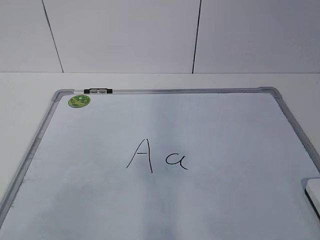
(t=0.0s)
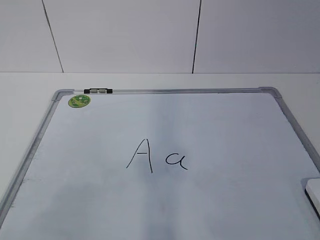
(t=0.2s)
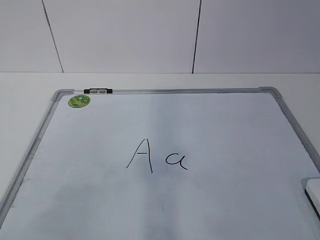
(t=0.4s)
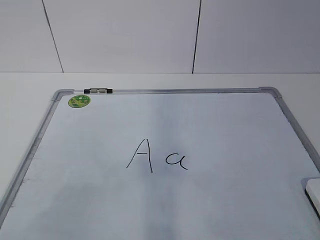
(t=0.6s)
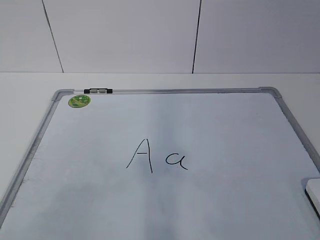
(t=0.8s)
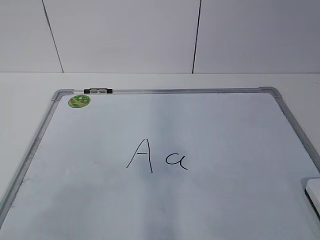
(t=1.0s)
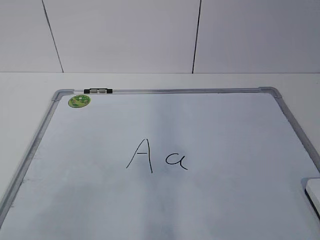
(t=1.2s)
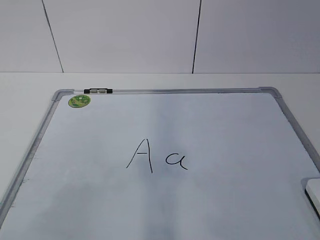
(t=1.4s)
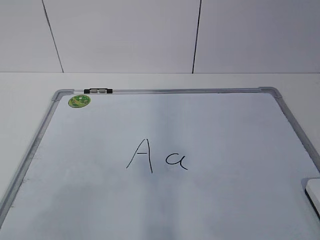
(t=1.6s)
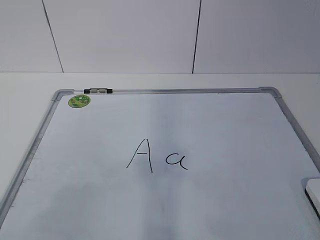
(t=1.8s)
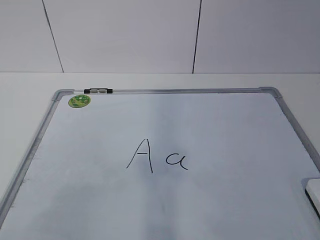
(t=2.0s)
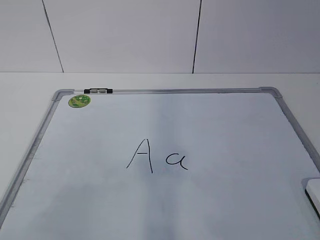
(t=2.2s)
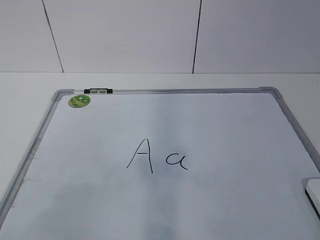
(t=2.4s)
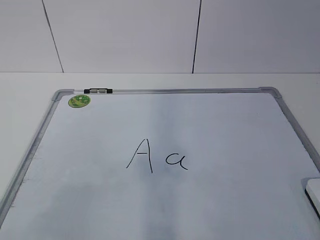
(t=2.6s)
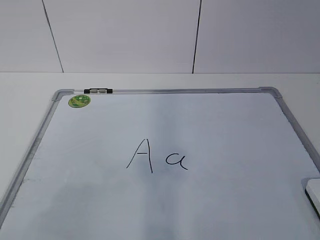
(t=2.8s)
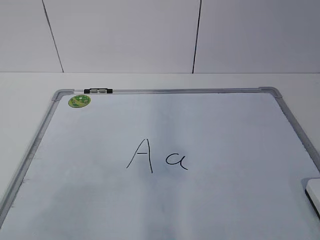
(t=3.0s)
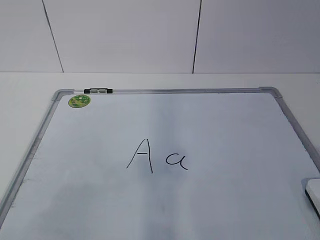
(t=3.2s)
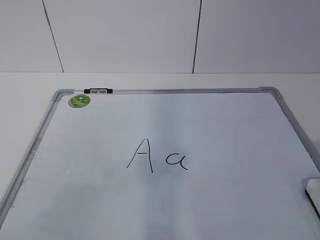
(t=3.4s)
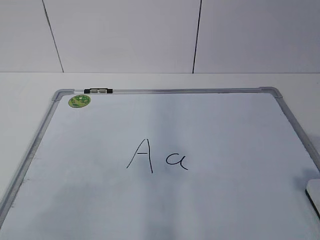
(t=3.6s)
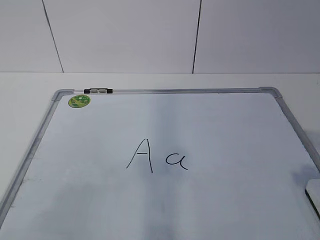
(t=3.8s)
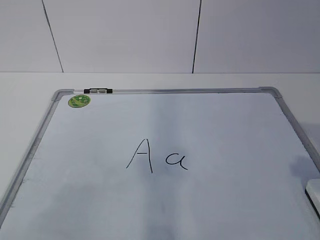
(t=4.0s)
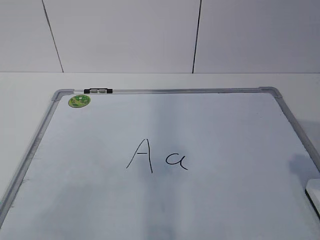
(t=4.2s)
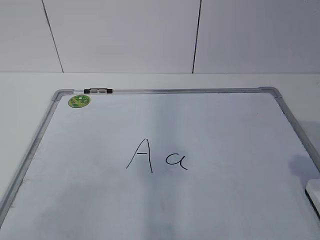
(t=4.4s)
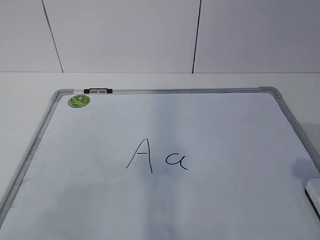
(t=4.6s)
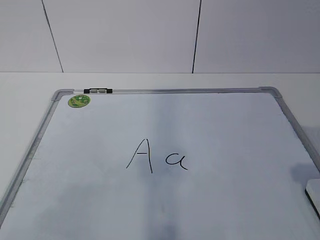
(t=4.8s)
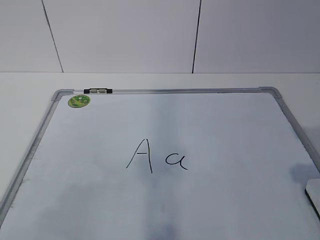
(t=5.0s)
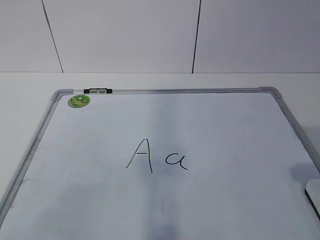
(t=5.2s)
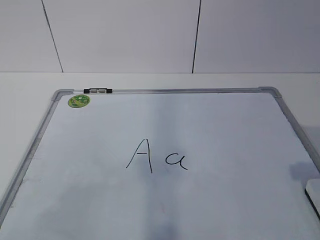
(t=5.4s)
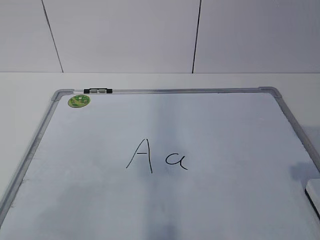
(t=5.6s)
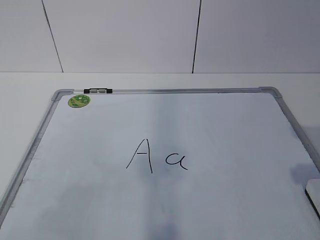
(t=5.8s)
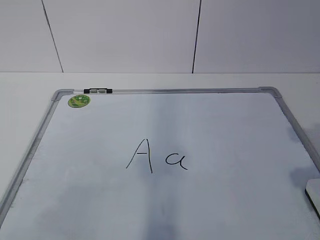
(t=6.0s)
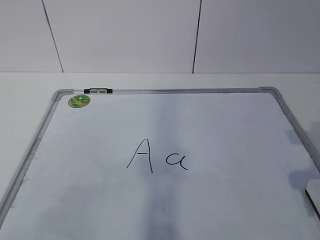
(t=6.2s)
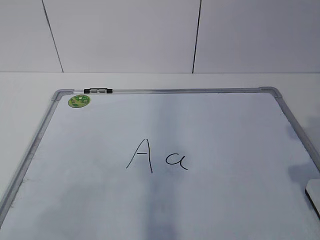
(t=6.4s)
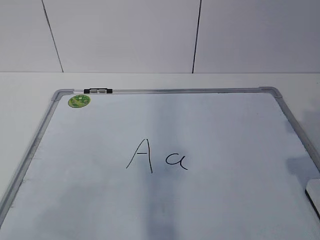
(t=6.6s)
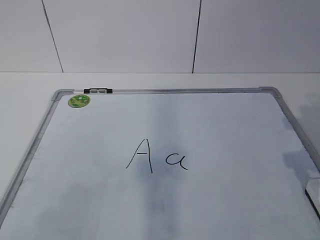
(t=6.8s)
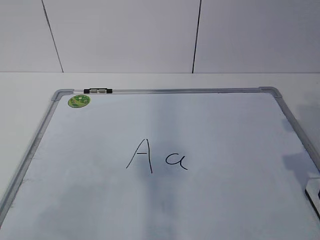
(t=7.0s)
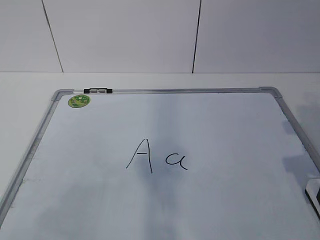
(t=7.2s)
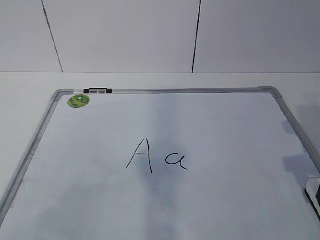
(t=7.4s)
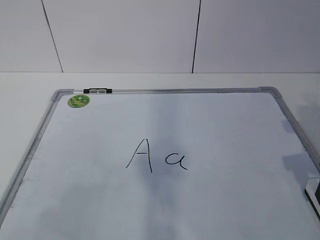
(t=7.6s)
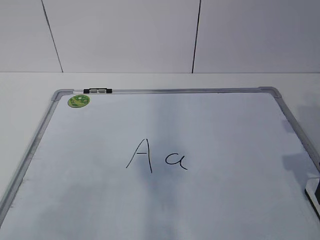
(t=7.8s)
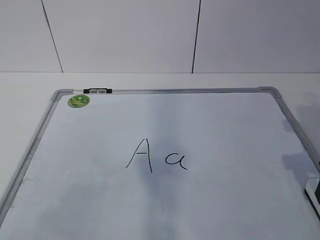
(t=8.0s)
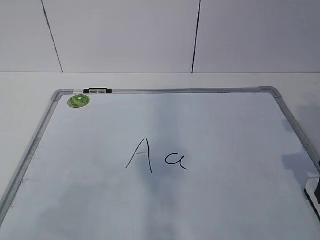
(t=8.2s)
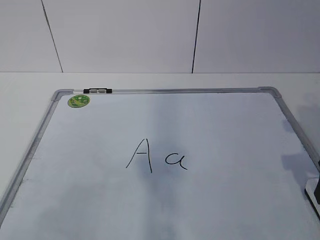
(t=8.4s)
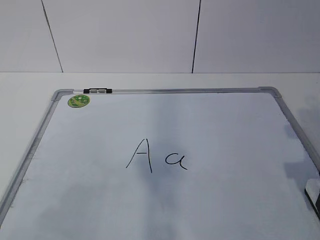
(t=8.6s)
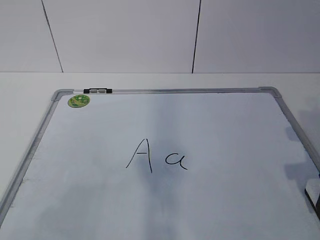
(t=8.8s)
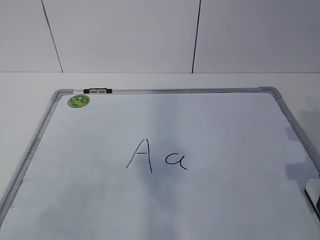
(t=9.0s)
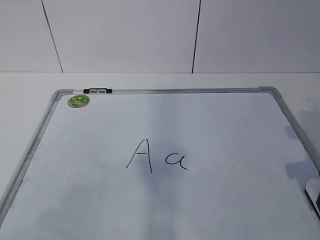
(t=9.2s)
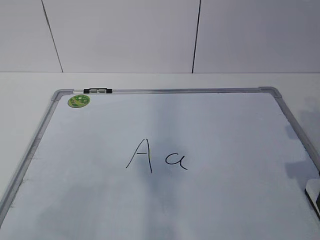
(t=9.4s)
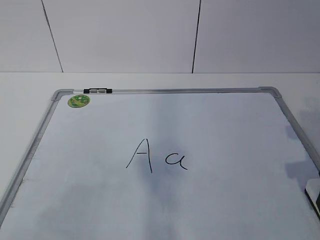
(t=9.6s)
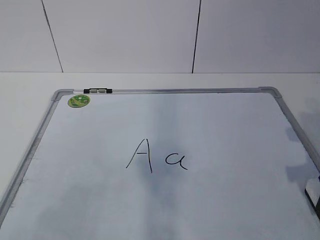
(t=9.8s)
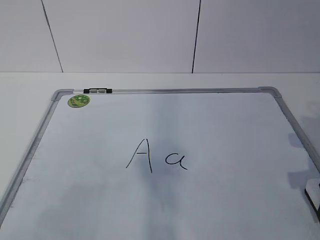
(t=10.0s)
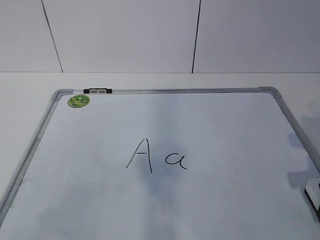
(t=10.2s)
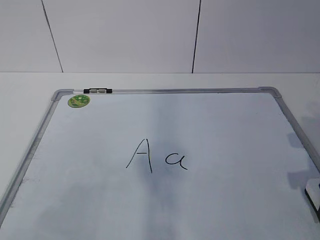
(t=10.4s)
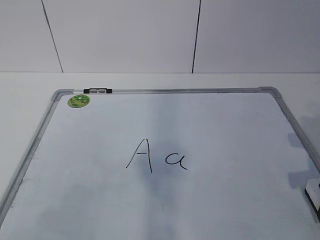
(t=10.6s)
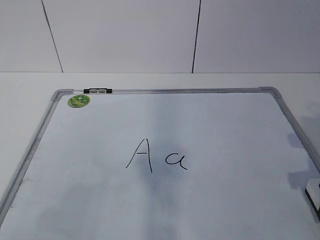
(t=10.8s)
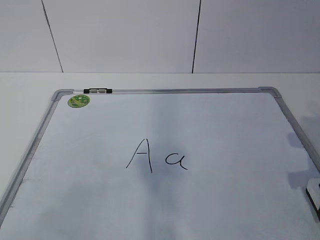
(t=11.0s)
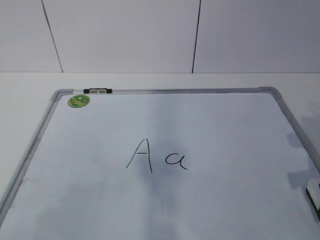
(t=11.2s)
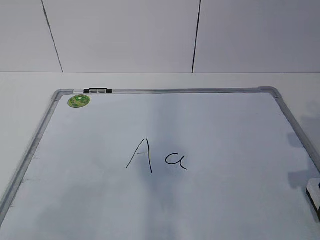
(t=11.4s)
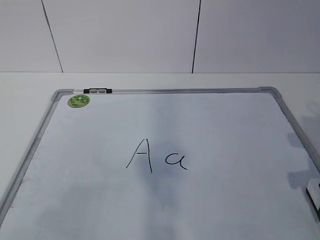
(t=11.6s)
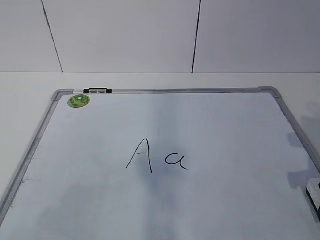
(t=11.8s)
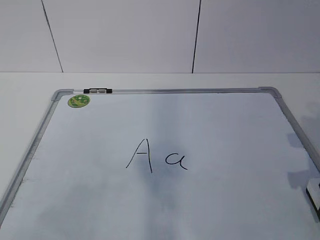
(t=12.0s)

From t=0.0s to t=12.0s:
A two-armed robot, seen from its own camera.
Task of the whole recording: pick up the eraser on the blackboard and erase the letter "a".
From t=7.6s to t=9.0s: The two grippers keep their place.
From t=10.4s to t=12.0s: Both grippers stay about where they are.

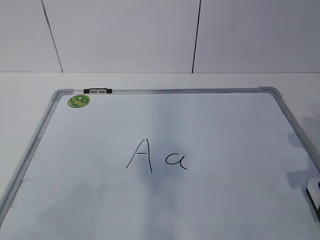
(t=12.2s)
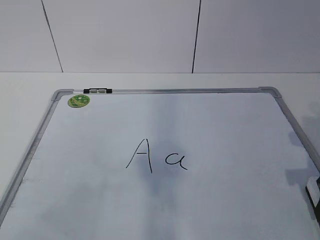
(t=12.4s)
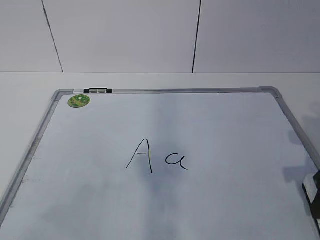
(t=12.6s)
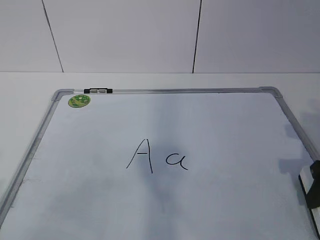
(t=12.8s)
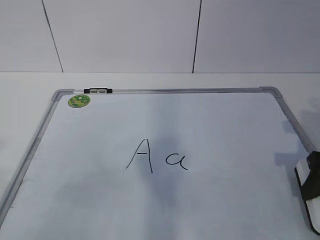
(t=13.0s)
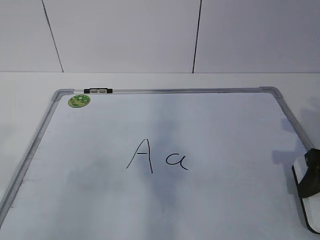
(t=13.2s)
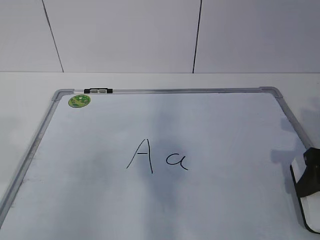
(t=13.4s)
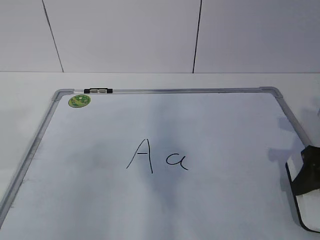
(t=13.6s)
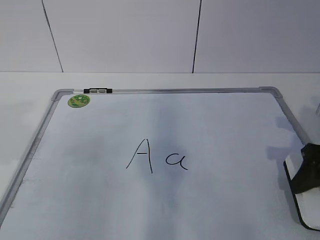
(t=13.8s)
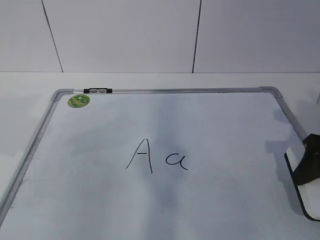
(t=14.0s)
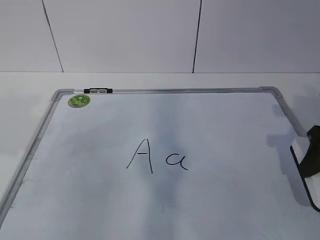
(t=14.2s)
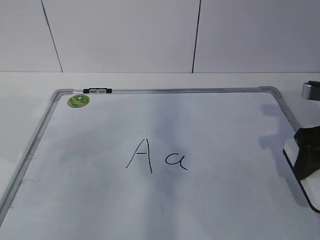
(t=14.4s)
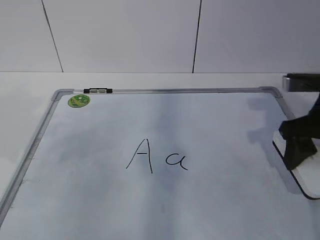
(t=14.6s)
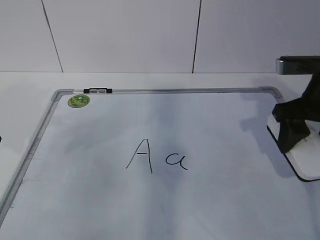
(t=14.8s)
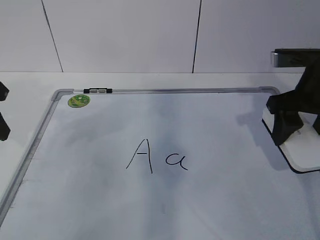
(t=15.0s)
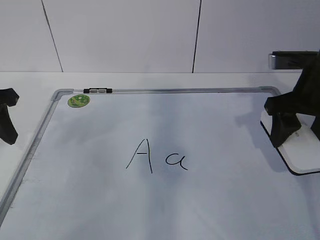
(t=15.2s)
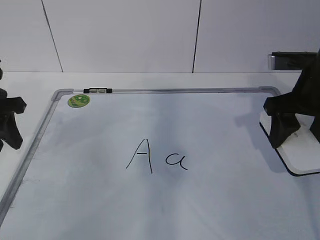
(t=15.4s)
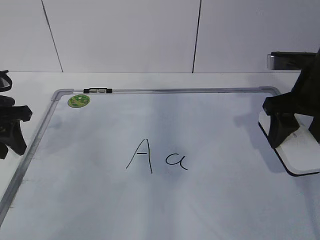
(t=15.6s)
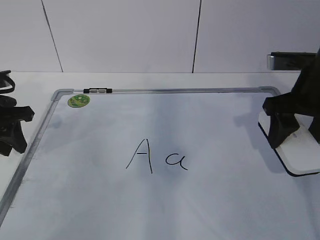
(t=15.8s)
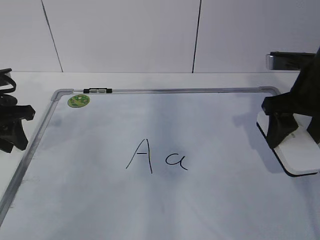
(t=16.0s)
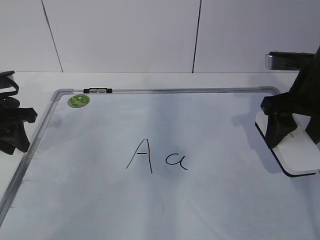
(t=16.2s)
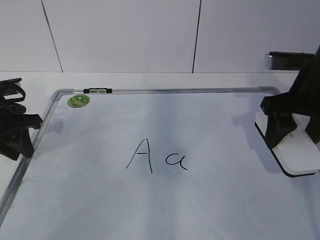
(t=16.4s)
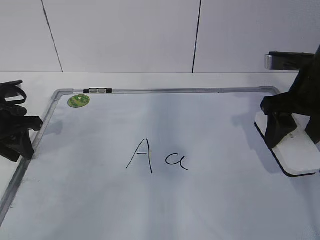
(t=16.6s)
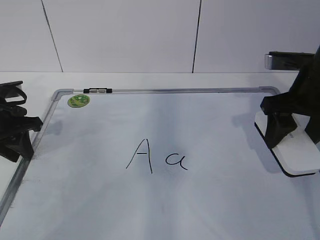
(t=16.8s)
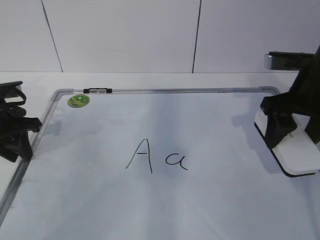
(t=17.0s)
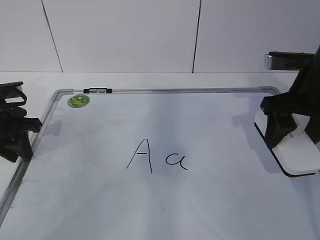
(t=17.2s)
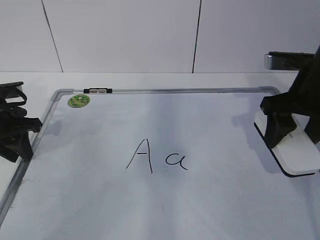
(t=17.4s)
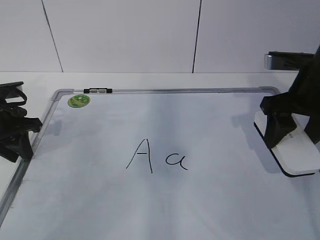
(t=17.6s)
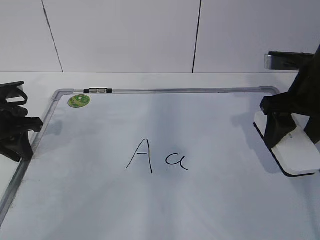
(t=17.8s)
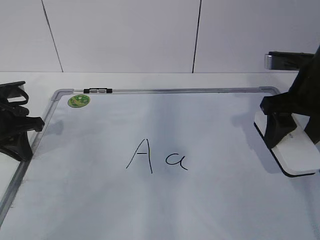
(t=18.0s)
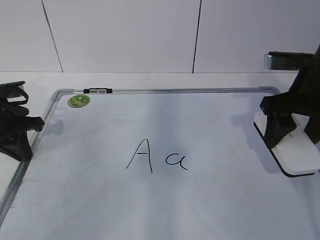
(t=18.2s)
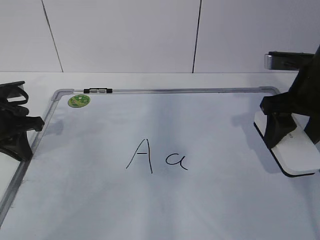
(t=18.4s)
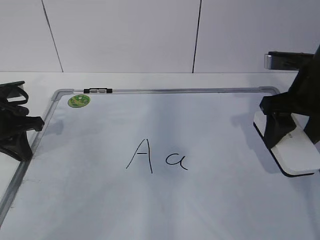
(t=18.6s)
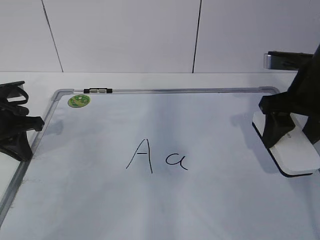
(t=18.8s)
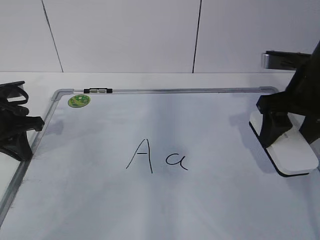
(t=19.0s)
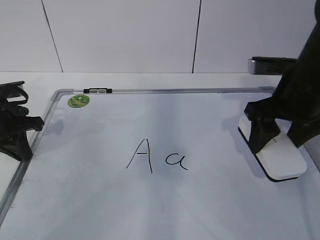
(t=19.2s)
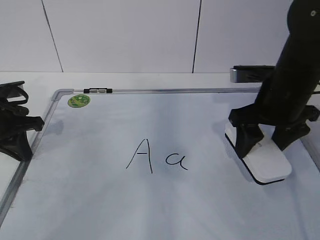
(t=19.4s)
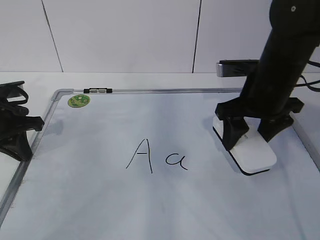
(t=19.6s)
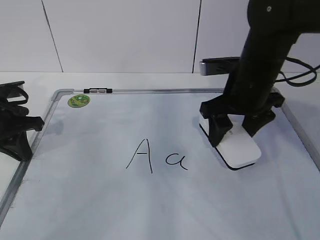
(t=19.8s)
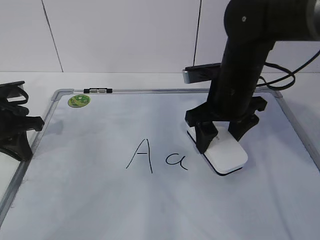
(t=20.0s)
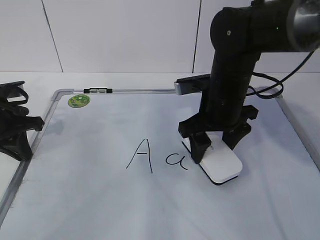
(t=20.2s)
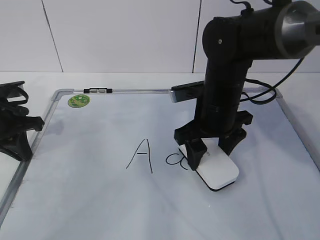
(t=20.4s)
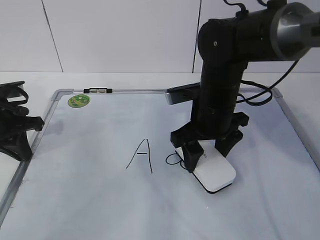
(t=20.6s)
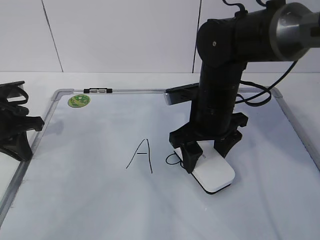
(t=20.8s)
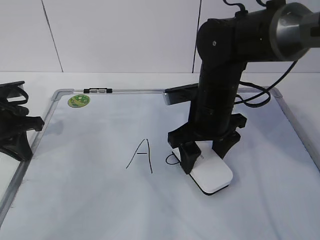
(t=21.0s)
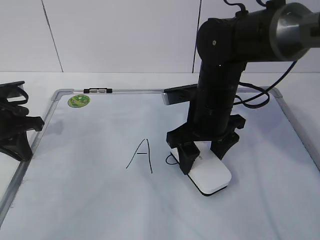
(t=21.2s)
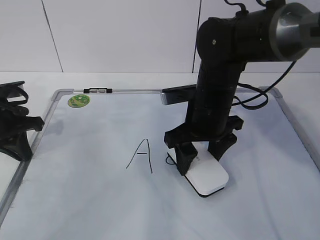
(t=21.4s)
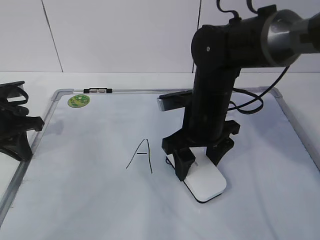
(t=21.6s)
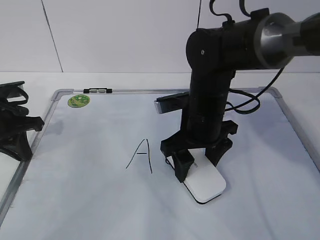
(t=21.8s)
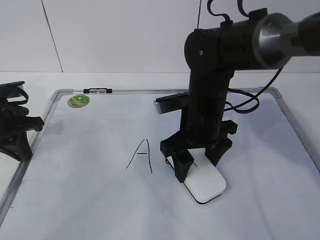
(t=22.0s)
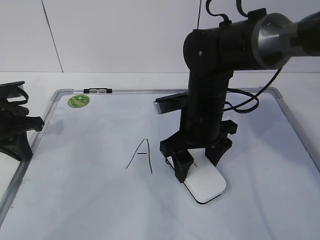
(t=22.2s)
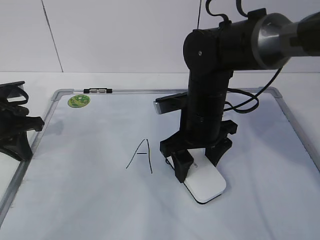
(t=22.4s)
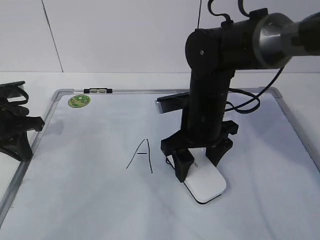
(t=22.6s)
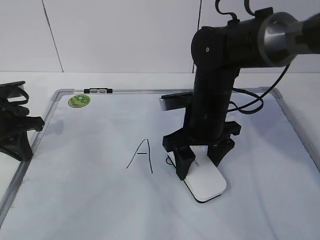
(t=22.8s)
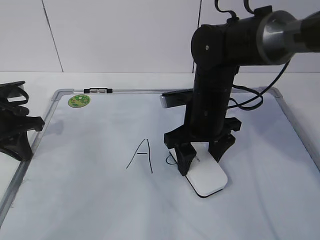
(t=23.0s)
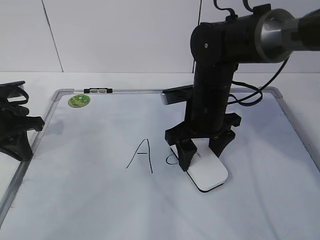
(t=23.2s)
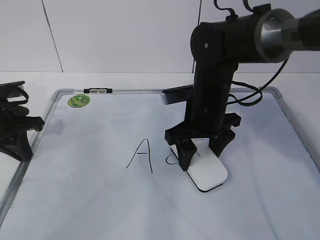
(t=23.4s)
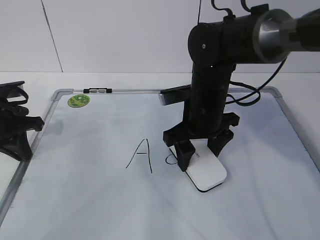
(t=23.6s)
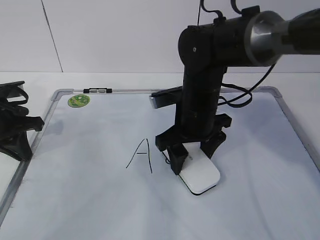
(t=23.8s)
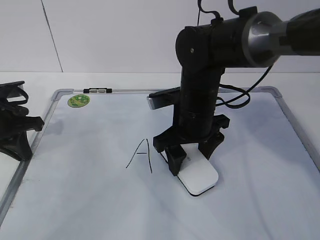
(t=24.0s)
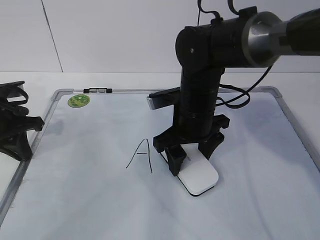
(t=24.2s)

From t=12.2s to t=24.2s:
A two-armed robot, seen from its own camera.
Task of the whole recording: pick up the eraser on the blackboard and erase the letter "a".
Step, from t=12.2s to t=14.8s: Hold the drawing board steady with your left hand.
Step, from t=15.0s to t=22.4s: Erase the letter a with your right hand.
From t=13.8s to t=15.2s: The right gripper shifts roughly 10 cm forward, upward and to the left. The left gripper is displaced forward and downward by roughly 15 cm.
From t=15.2s to t=16.6s: The left gripper shifts approximately 10 cm downward.
From t=16.6s to t=18.2s: The left gripper closes up.
From t=18.2s to t=19.8s: The right gripper shifts approximately 10 cm to the left.
From t=19.8s to t=21.2s: The right gripper shifts about 5 cm to the left.
From t=21.2s to t=24.2s: The grippers make only small movements.
